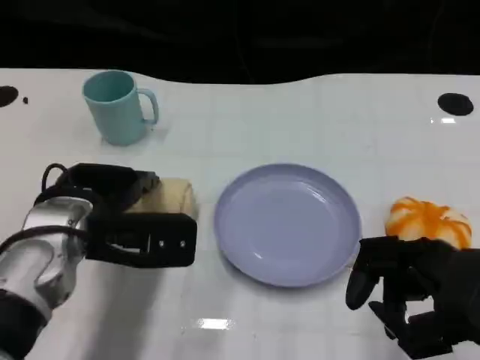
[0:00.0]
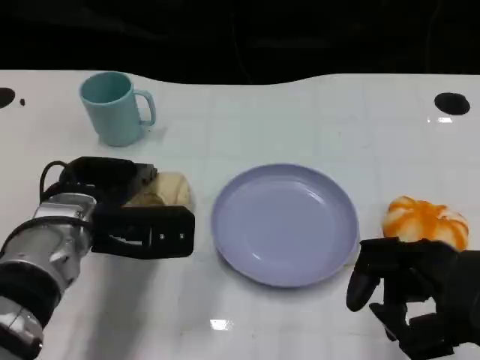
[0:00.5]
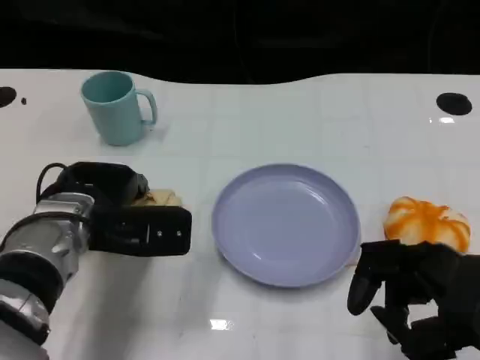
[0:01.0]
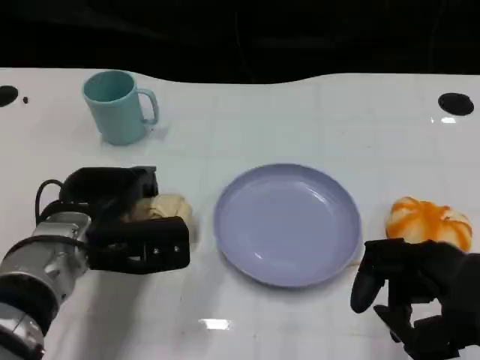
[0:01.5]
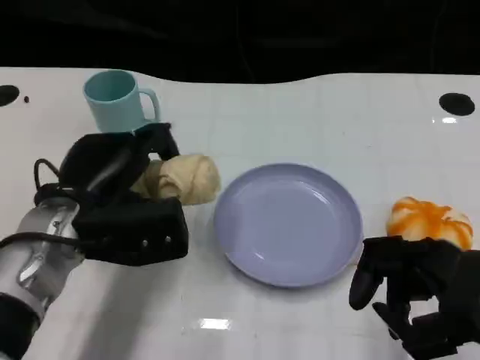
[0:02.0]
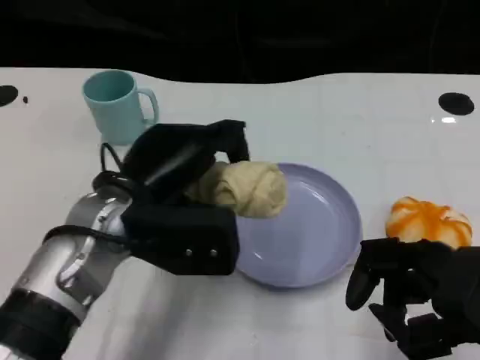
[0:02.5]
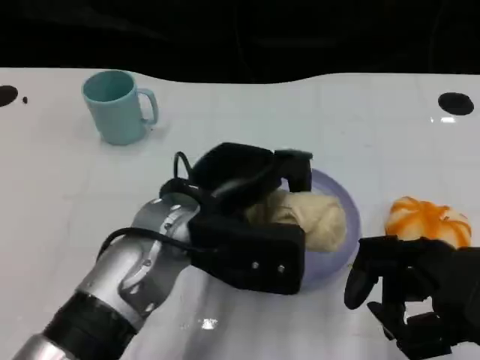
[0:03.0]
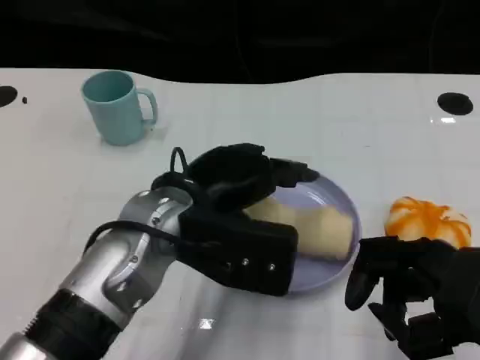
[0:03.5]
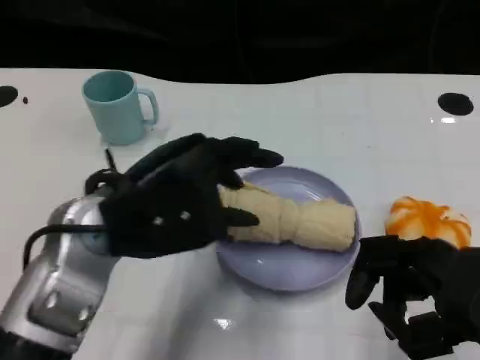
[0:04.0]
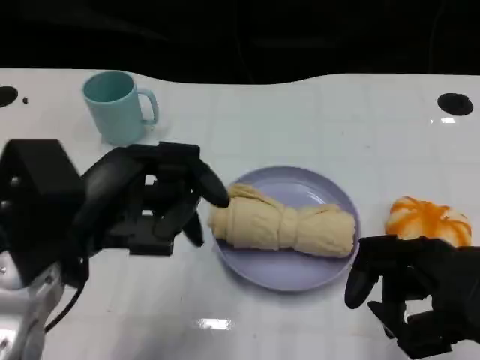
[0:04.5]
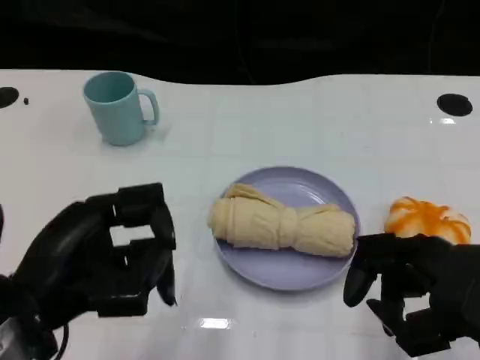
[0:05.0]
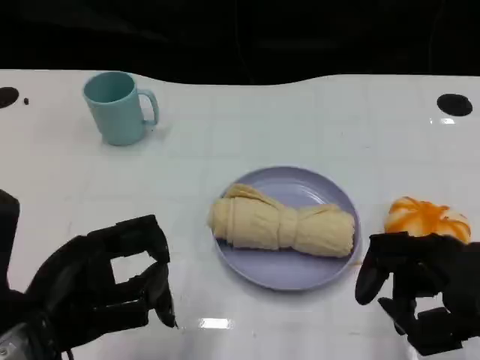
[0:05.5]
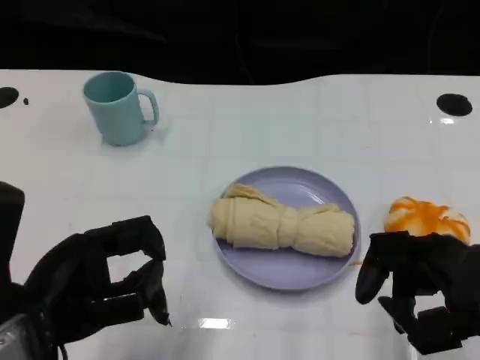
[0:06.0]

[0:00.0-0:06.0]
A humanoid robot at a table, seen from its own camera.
Task of the whole recording: Grasp the towel on the left side of the plate with the left hand and place it into the plate.
0:02.0 to 0:04.0: The left hand travels upward by approximately 5 cm, and moves approximately 10 cm to the right and comes back.
0:04.0 to 0:06.0: The left hand moves backward and to the left, about 10 cm.

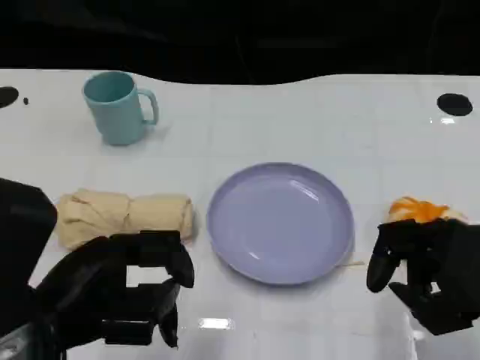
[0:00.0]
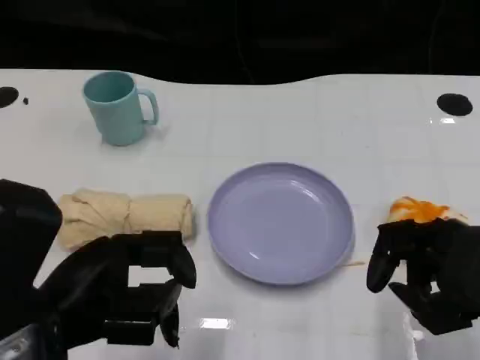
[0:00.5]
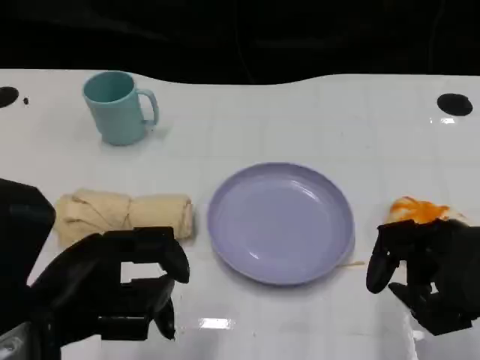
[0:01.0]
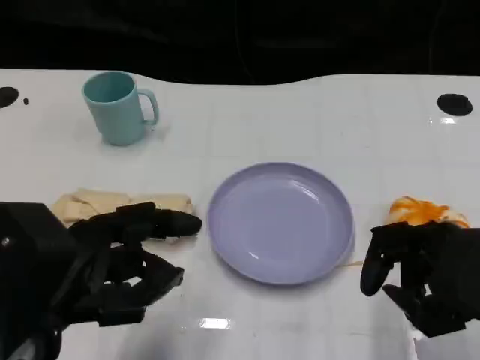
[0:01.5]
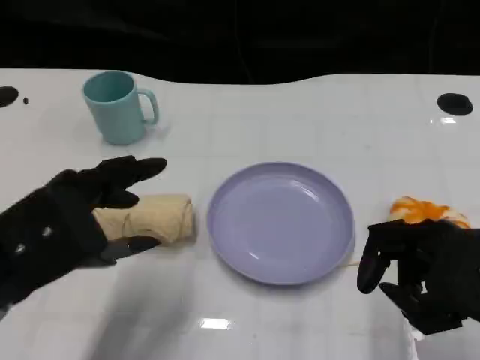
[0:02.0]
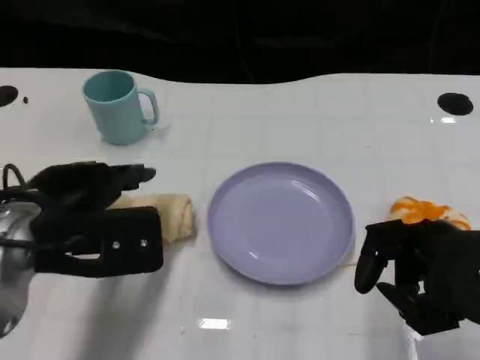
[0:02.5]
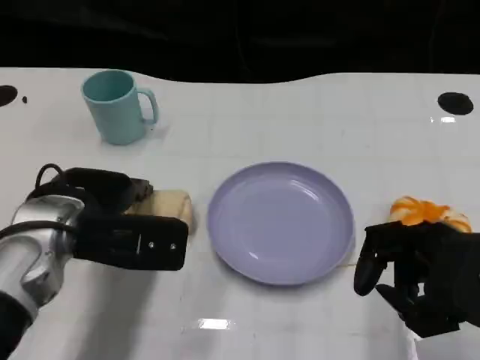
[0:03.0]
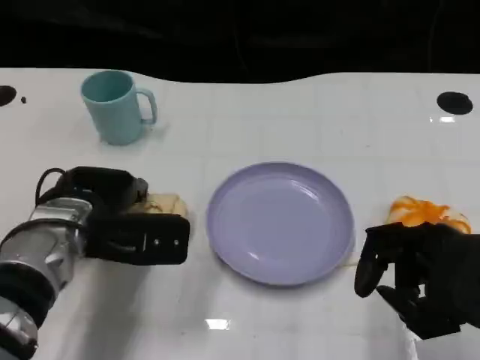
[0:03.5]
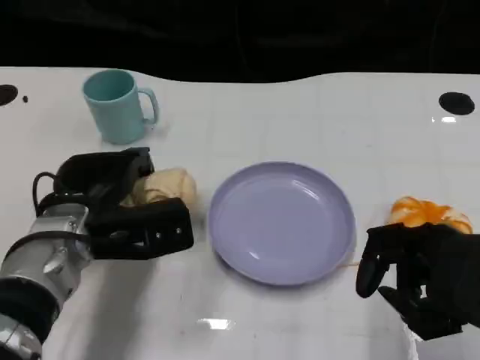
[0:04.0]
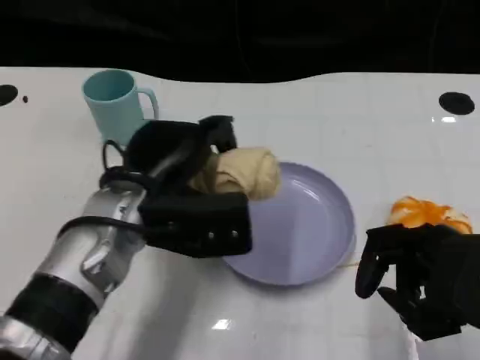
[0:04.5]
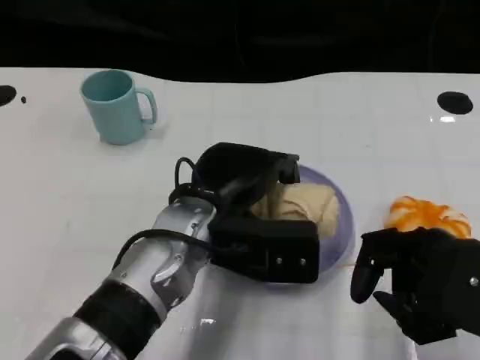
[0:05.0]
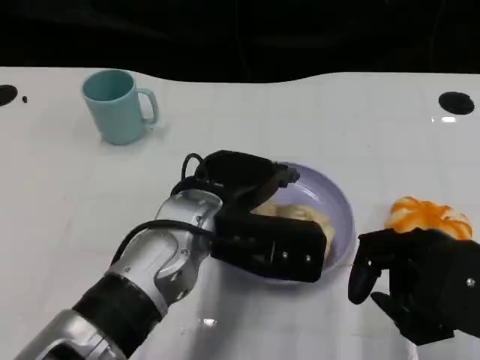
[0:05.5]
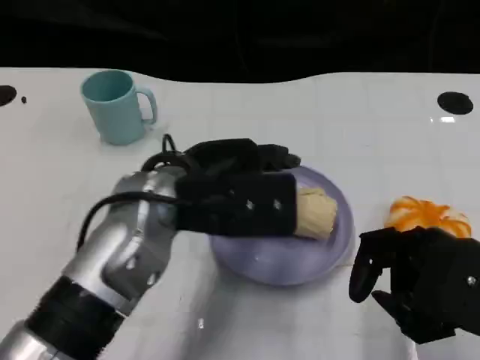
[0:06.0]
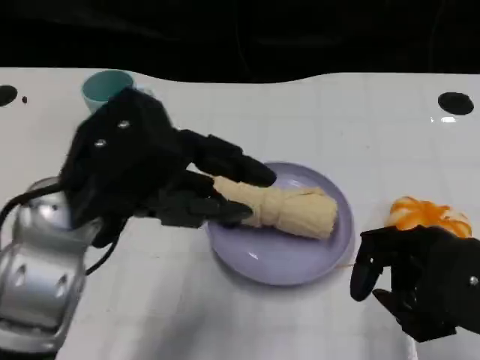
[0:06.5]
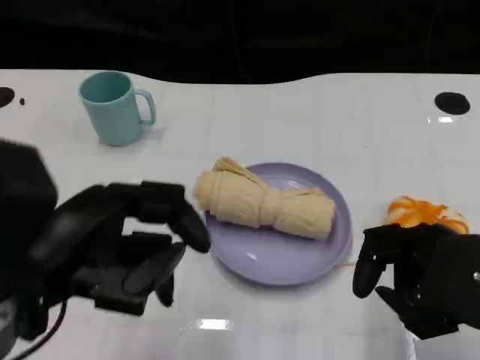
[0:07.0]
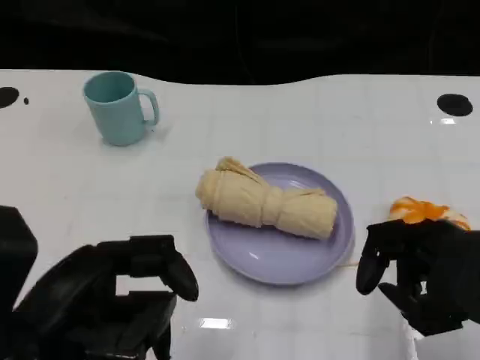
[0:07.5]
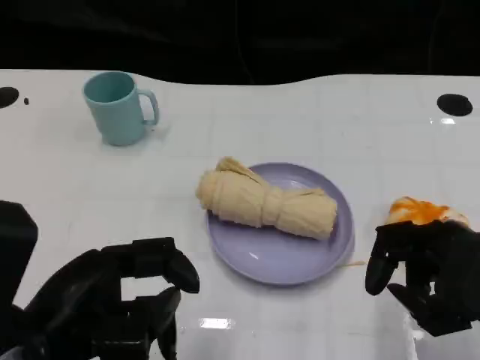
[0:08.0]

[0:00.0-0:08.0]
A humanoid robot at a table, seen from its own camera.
Task of the whole recording: Grasp the towel on the left side of the plate with the left hand and place it into the plate.
0:02.0 to 0:04.0: The left hand travels forward, downward and to the right by some 15 cm.
0:04.0 to 0:06.0: The left hand moves upward and to the right, approximately 10 cm.
0:06.0 to 0:08.0: The left hand moves backward and to the left, approximately 15 cm.

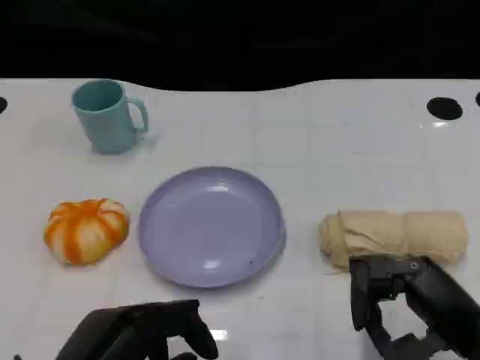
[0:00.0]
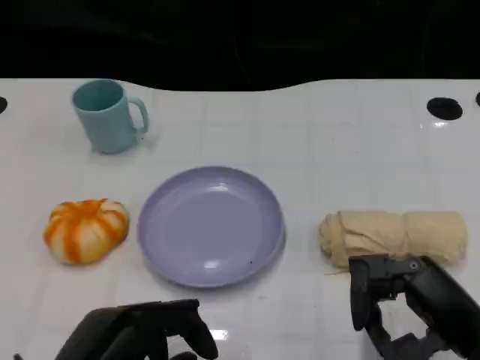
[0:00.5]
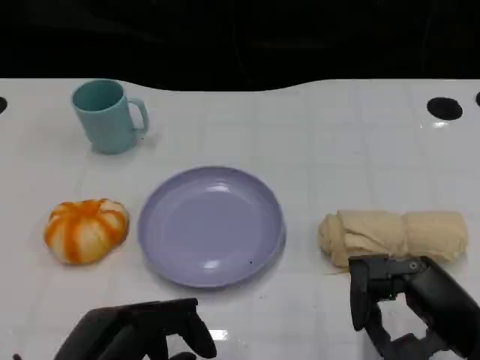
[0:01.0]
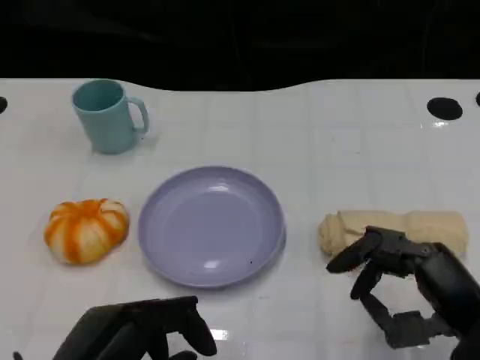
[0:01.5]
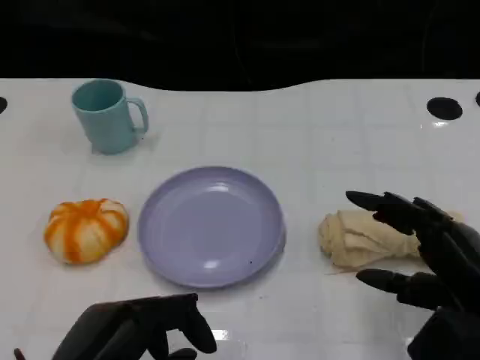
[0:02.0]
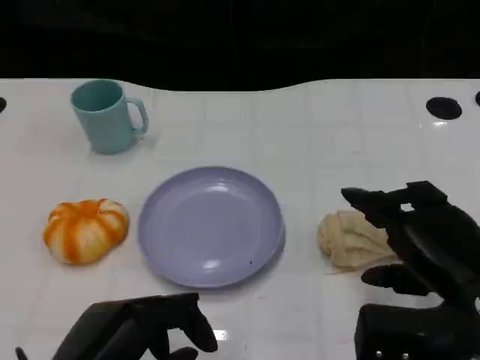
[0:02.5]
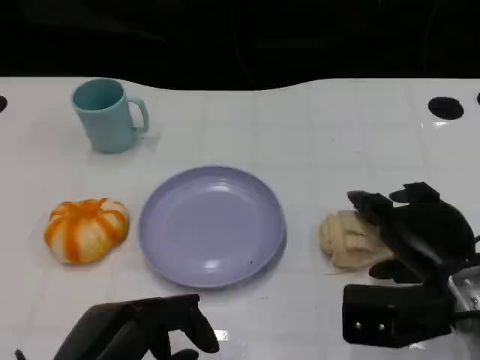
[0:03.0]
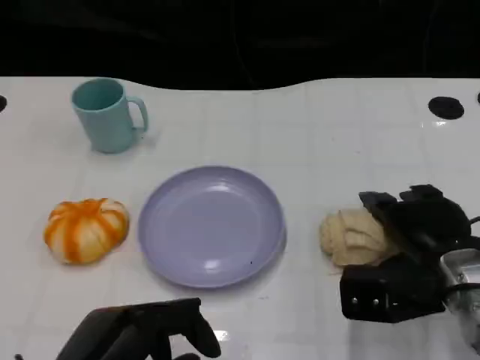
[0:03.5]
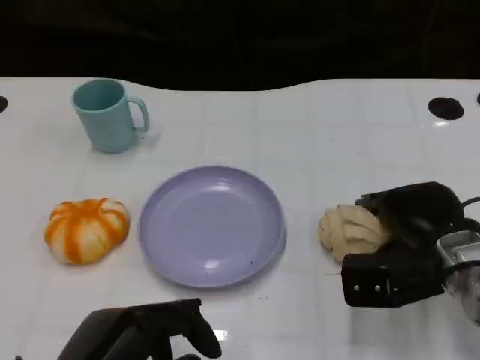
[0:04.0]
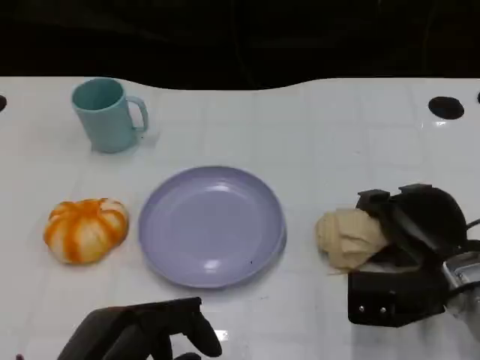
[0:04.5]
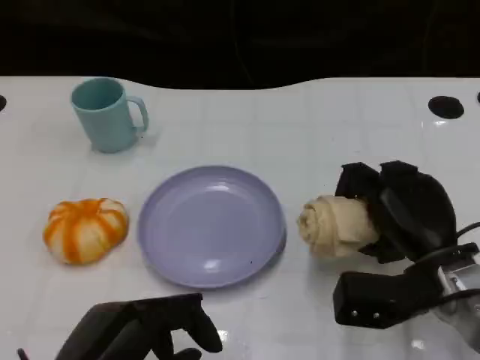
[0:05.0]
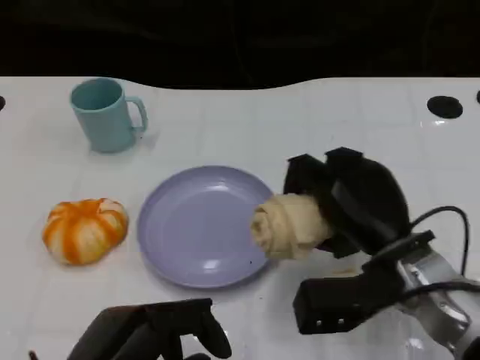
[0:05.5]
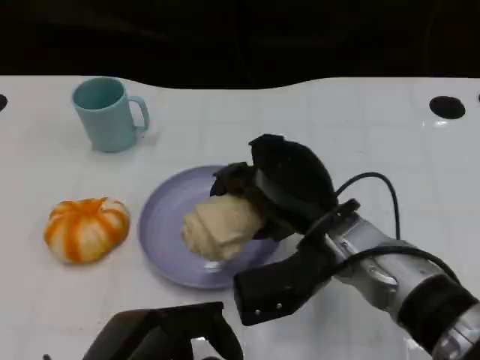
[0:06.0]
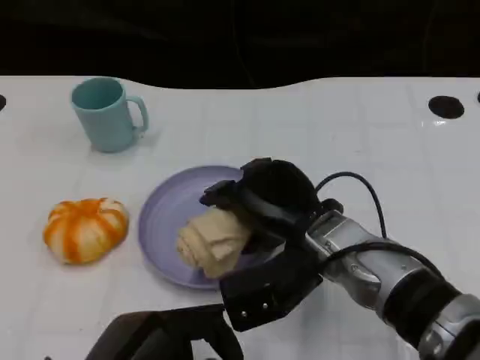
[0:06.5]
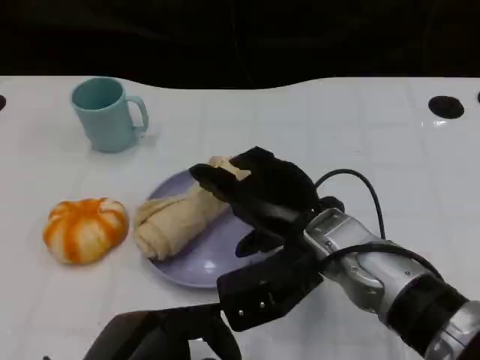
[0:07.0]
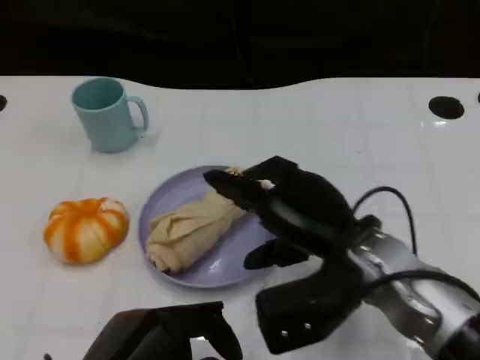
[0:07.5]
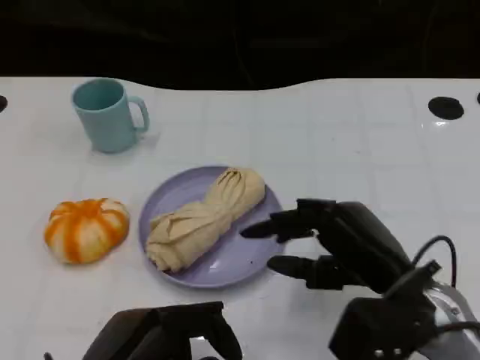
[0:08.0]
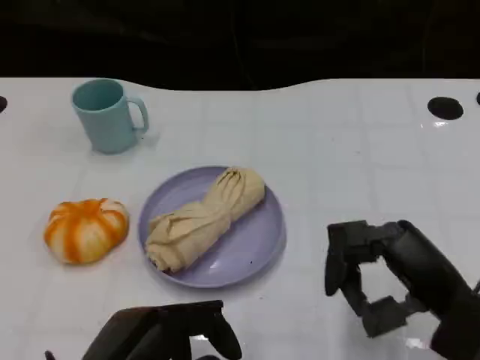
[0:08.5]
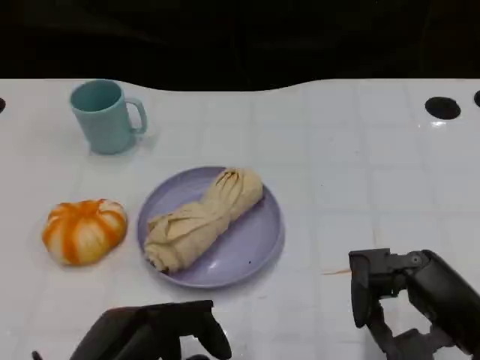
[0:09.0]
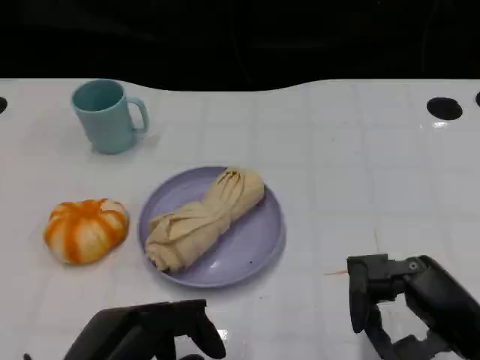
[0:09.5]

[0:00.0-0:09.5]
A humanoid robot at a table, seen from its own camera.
Task of the whole recording: Grasp the towel on the left side of the plate with the left hand and place it into the plate.
0:02.0 to 0:04.0: The right hand shifts some 10 cm forward.
0:04.0 to 0:05.5: The right hand is displaced to the left by about 5 cm.
0:07.5 to 0:09.5: The right hand goes roughly 15 cm to the right and backward.

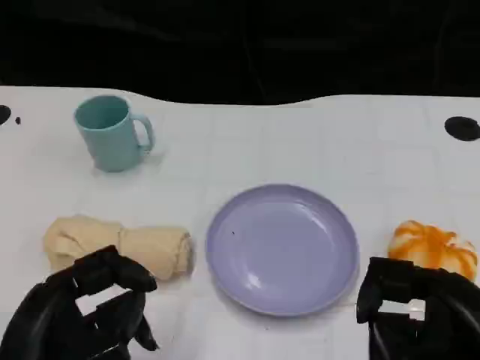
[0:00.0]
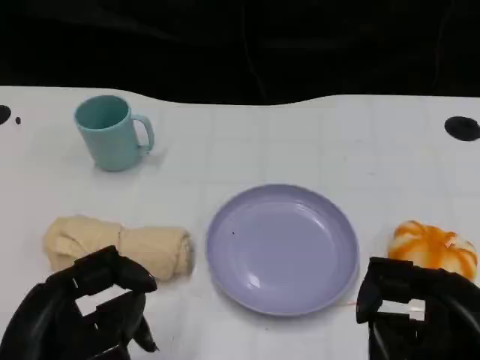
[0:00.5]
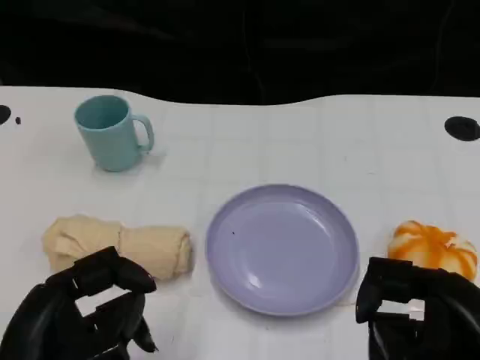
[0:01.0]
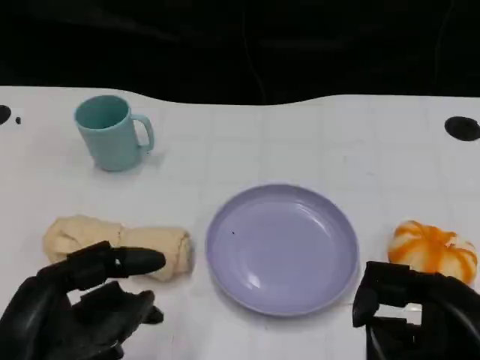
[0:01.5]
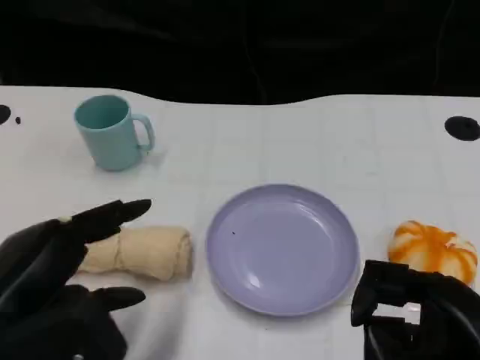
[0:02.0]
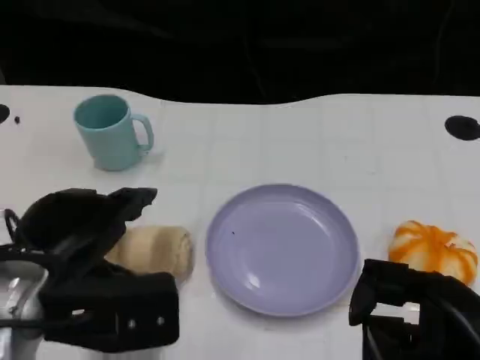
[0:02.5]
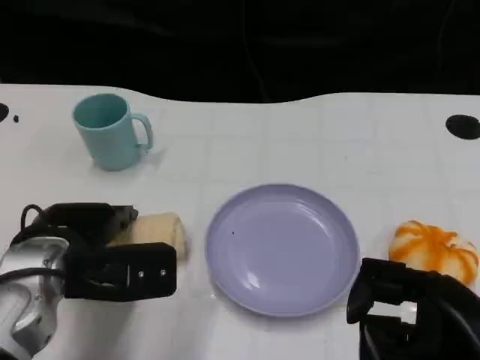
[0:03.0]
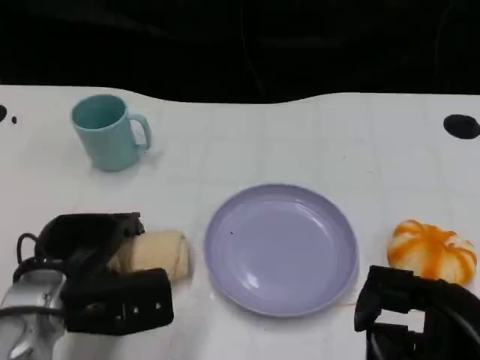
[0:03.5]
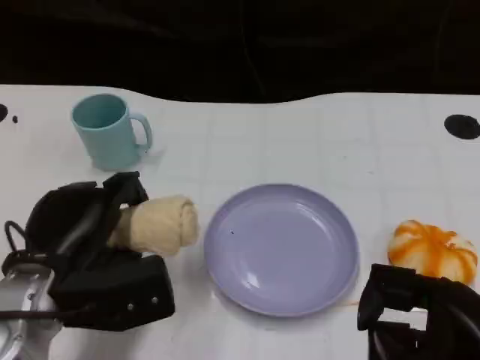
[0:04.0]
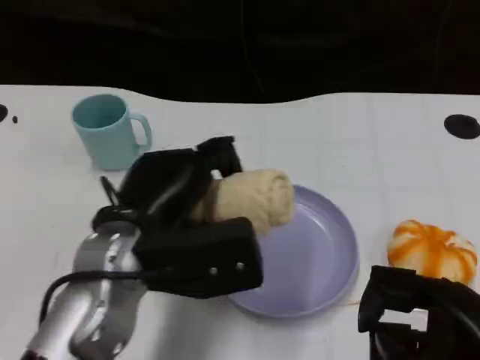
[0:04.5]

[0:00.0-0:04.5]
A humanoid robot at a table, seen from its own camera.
Task of the whole recording: Grasp the towel on the left side of the plate with the left hand and place it into the plate.
0:00.0 to 0:02.0: The left hand moves roughly 5 cm.
0:02.0 to 0:04.5: The left hand heads to the right and forward, covering some 15 cm.
